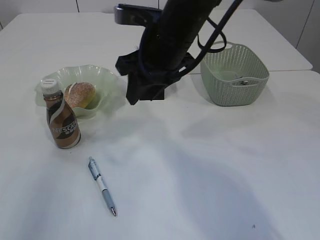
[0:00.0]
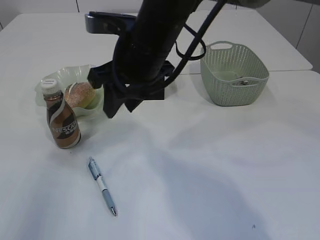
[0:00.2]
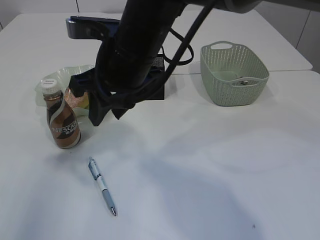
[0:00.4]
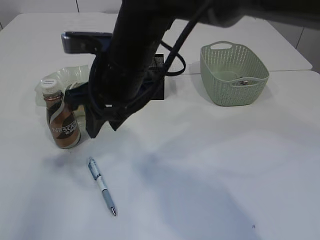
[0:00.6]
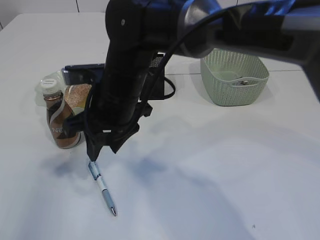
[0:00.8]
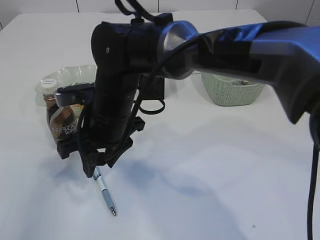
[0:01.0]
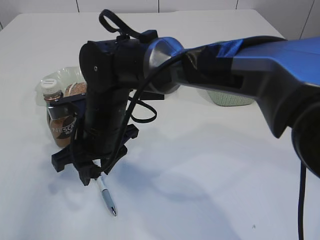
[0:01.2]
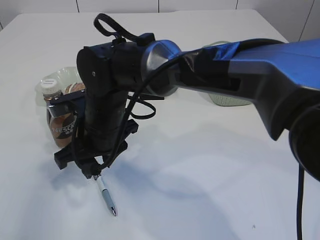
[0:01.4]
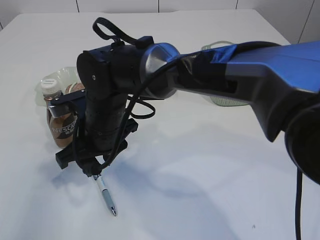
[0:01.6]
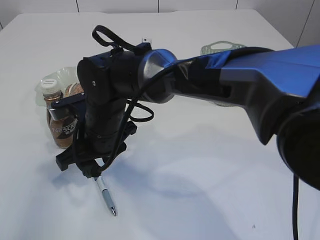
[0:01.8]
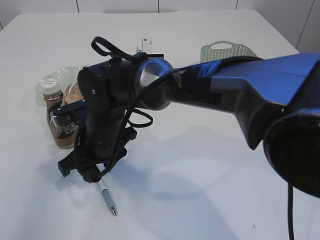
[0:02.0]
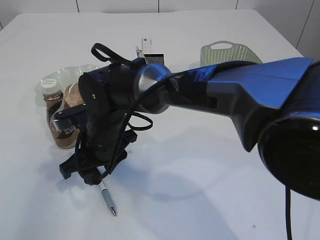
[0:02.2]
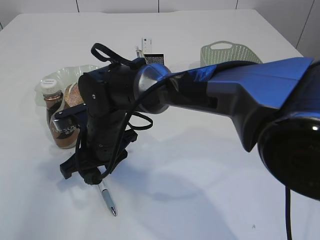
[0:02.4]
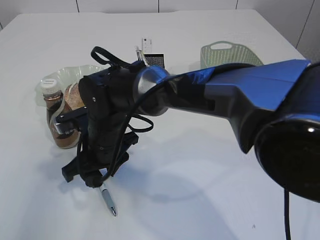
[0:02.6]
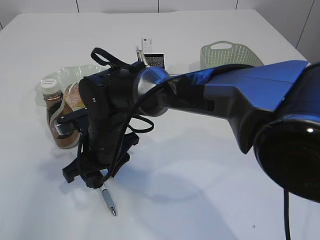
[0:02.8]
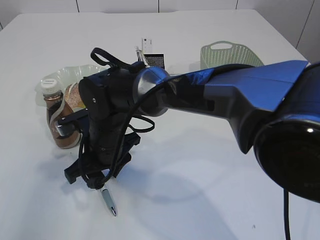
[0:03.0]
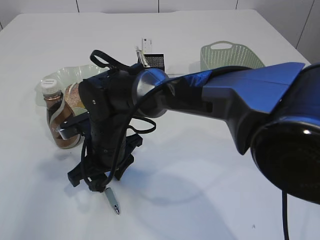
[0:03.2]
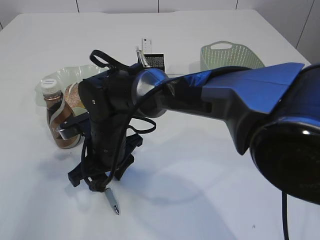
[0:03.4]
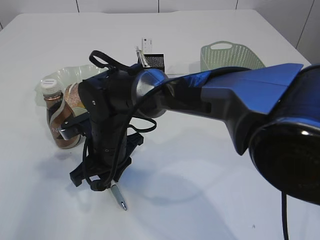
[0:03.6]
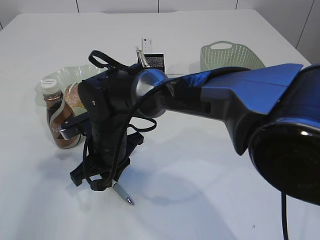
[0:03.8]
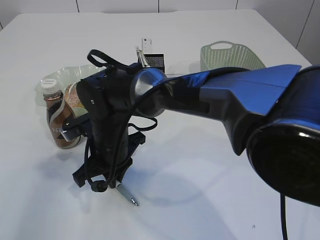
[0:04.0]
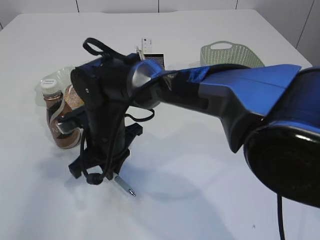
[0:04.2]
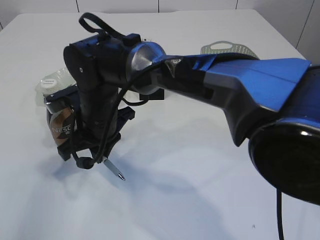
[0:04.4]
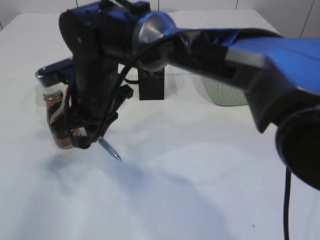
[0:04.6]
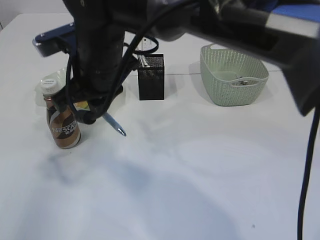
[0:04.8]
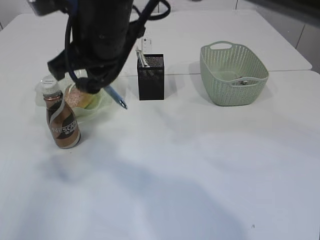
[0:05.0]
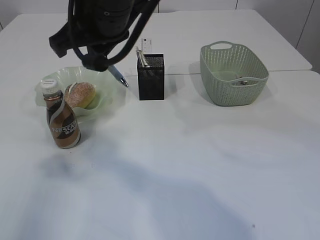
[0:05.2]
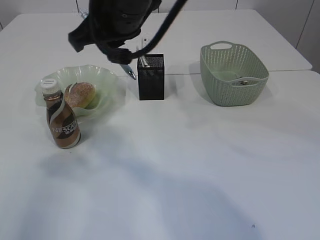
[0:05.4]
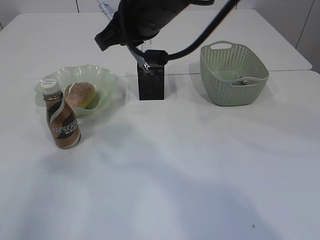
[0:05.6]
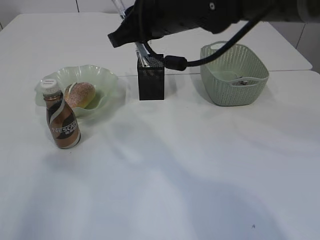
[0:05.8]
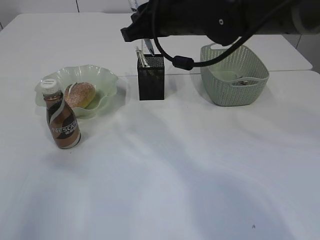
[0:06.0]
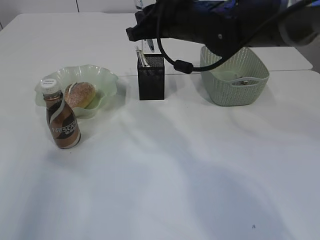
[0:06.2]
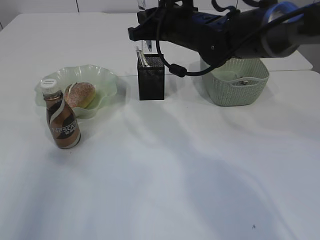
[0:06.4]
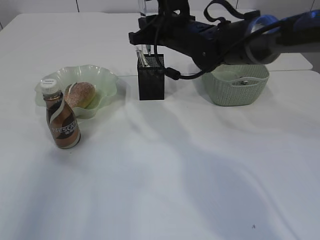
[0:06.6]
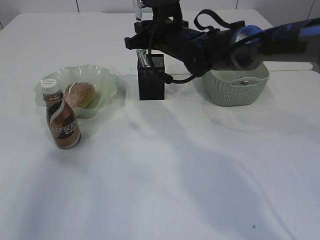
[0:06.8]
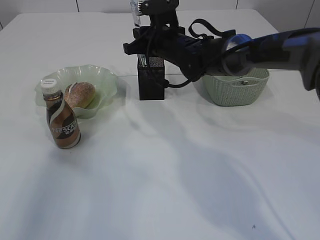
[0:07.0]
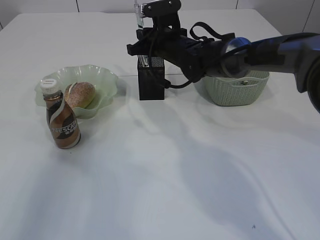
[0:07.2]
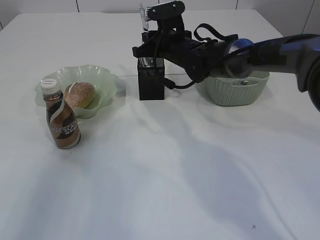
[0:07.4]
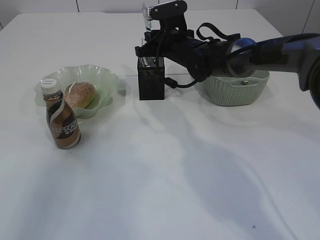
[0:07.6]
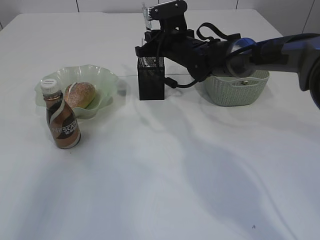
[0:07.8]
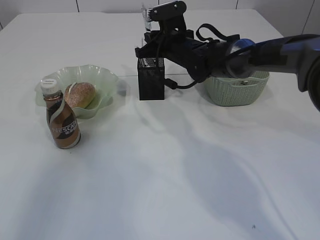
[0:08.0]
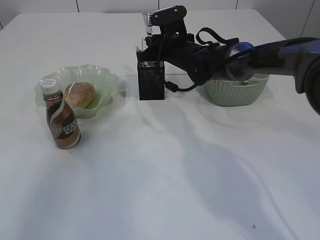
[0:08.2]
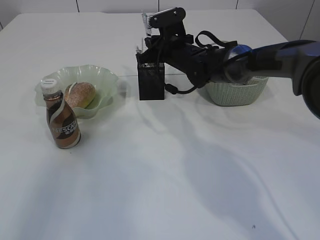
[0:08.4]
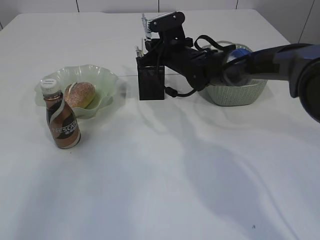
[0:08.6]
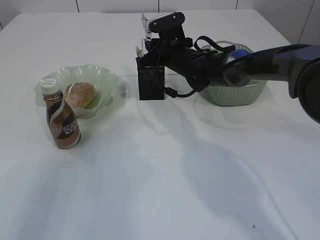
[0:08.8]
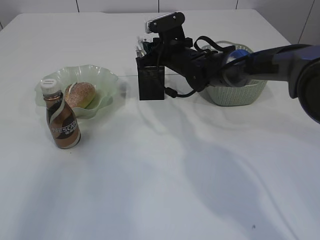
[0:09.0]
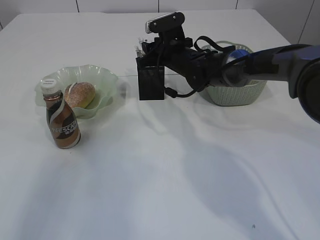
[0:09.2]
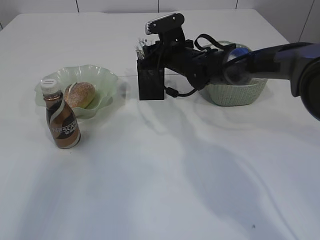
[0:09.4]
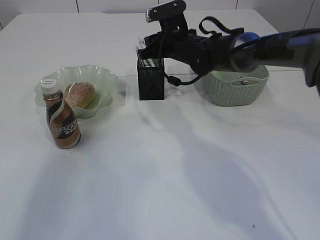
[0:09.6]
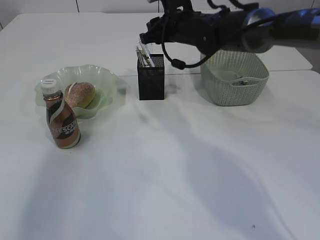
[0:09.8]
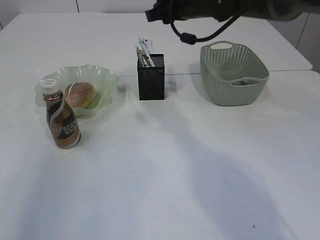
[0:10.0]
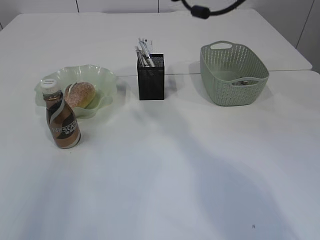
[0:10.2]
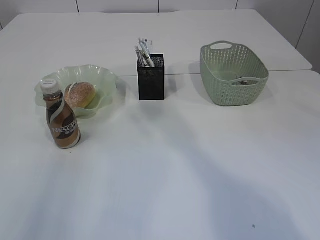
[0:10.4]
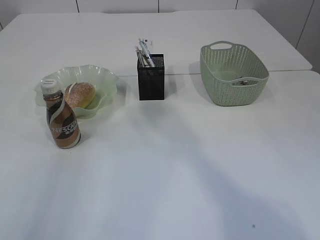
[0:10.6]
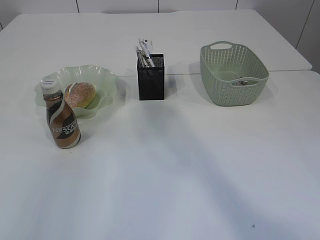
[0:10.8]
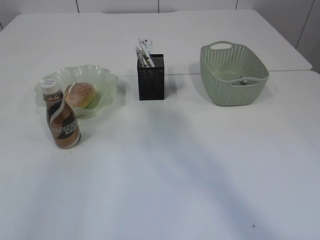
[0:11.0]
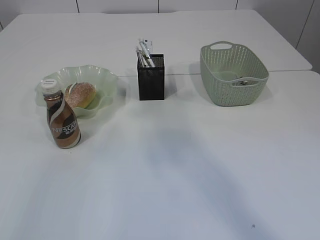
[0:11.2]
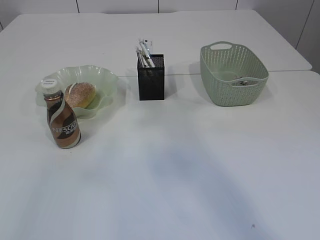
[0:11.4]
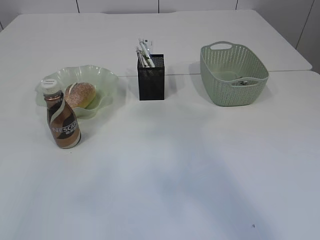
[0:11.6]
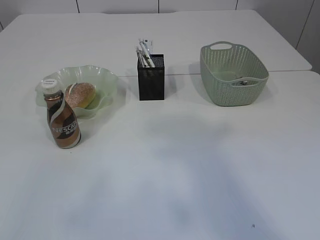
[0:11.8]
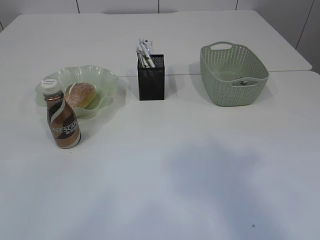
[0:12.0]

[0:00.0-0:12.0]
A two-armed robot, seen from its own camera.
Step, 0:00.0 to 0:04.6: Pick up the pen with right arm.
Step, 0:04.8 to 0:10.0: Place the pen into the pen holder.
0:00.0 to 0:01.6: The right gripper heads to the left and downward, covering approximately 15 cm.
0:03.0 to 0:04.4: The right gripper closes its fingers.
0:04.4 to 0:06.0: The right gripper is displaced upward and to the right by approximately 20 cm.
0:06.0 to 0:07.6: The right gripper travels forward and downward by roughly 15 cm.
0:07.6 to 0:09.0: The grippers move only a little.
0:09.0 to 0:10.4: The right gripper is displaced upward and backward by some 25 cm; the left gripper heads upward, covering some 5 cm, and opens.
0:10.4 to 0:12.0: Both grippers travel together backward, some 30 cm.

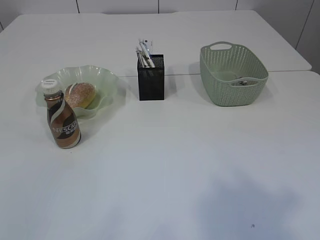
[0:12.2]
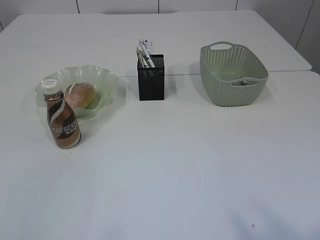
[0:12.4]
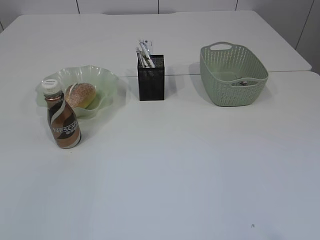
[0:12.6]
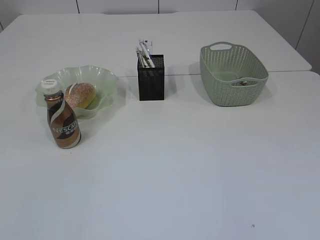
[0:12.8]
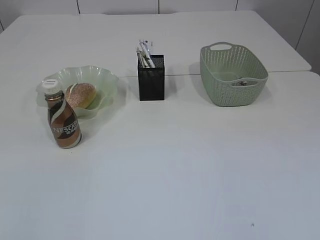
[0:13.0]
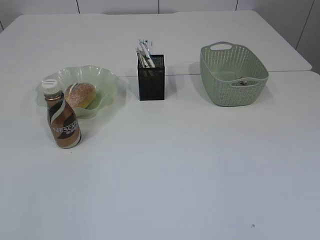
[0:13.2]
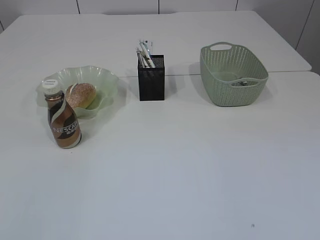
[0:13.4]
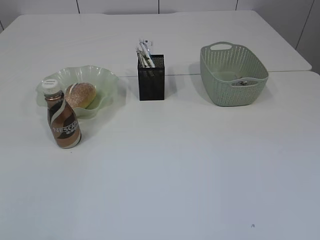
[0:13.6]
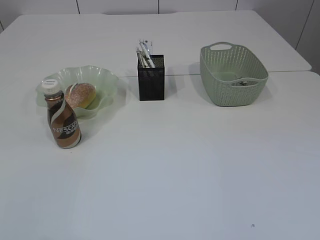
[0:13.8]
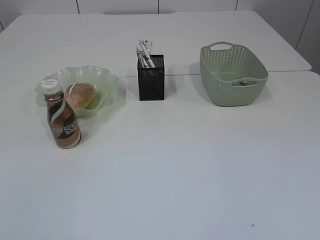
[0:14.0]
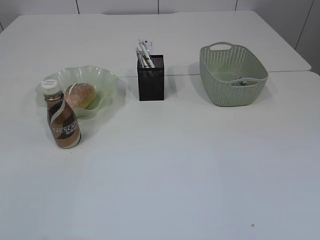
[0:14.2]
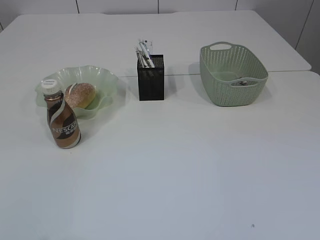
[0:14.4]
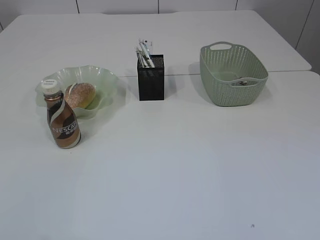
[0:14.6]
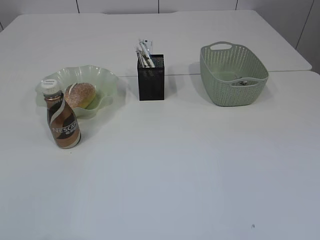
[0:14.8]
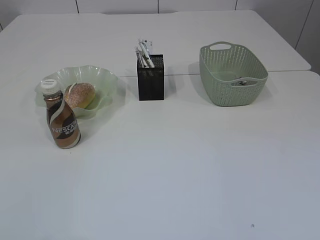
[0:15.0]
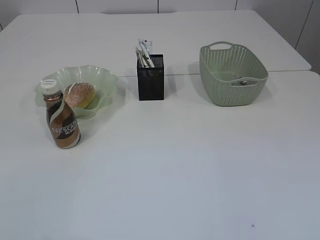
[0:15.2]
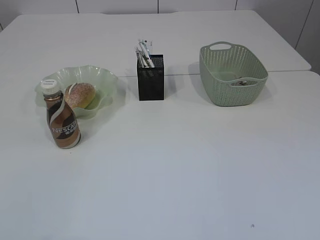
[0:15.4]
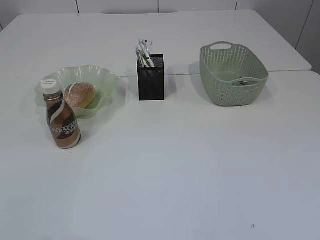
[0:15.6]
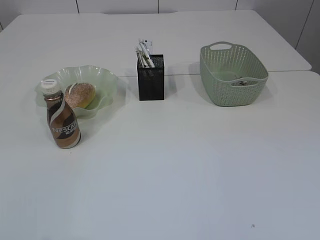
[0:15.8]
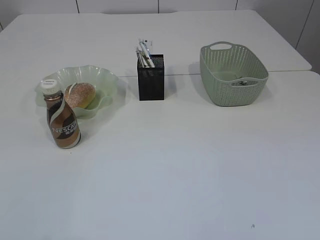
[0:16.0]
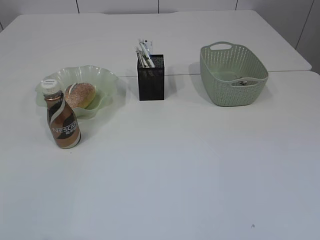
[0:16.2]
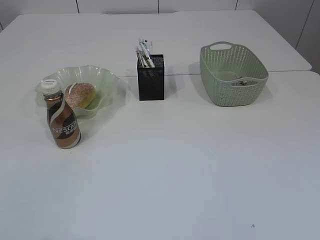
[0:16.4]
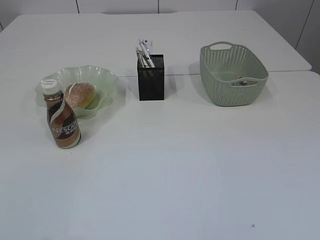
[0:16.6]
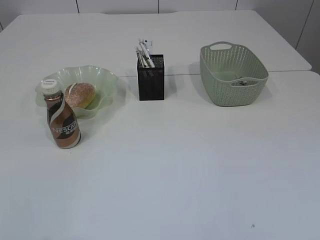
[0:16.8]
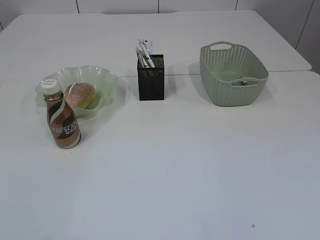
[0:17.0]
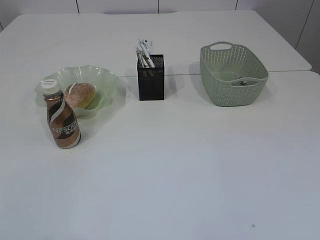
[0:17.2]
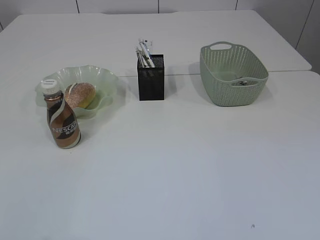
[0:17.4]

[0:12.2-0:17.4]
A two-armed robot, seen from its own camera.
0:12.2 to 0:14.0: The right gripper moves downward, some 20 cm.
0:15.6 to 0:17.4: Neither gripper changes place.
